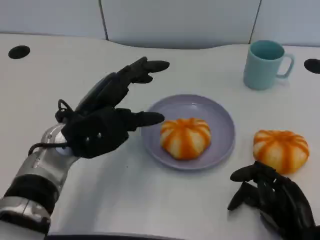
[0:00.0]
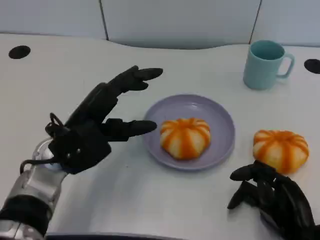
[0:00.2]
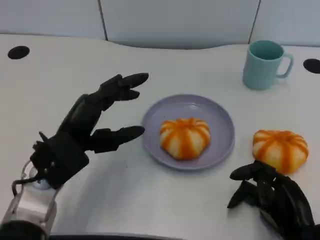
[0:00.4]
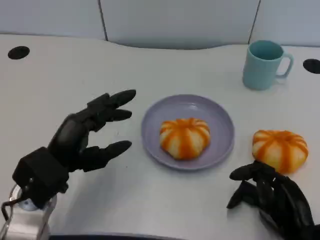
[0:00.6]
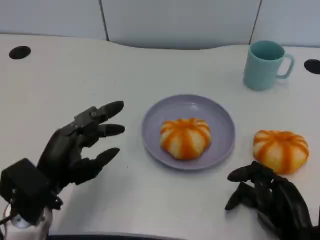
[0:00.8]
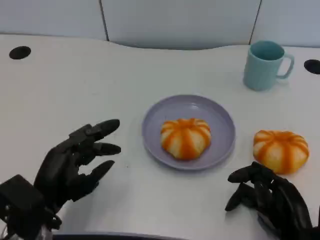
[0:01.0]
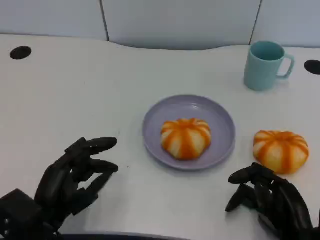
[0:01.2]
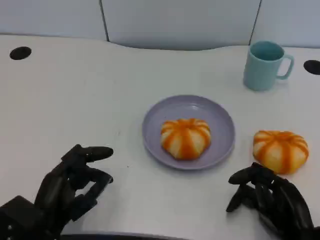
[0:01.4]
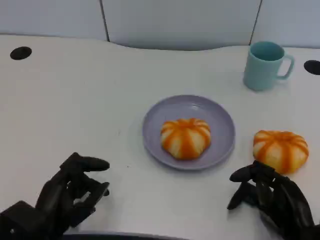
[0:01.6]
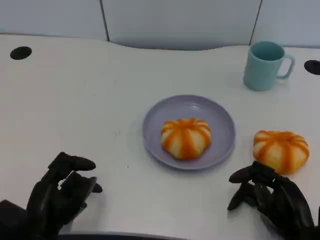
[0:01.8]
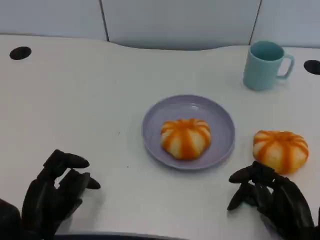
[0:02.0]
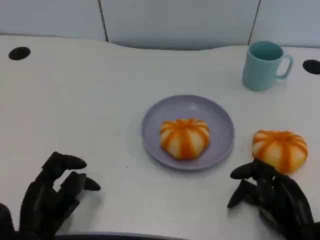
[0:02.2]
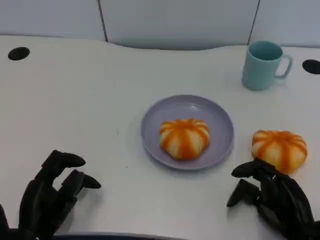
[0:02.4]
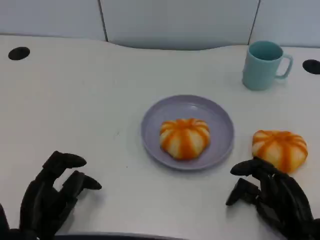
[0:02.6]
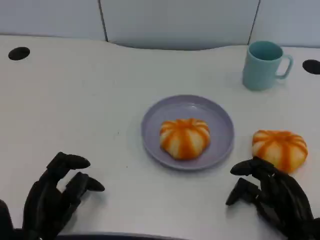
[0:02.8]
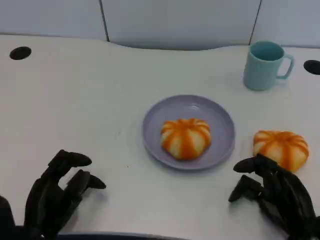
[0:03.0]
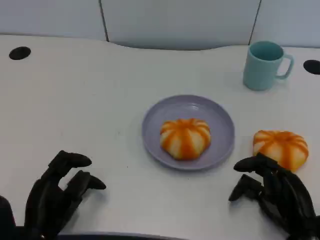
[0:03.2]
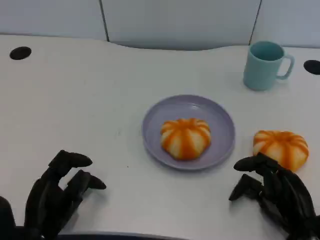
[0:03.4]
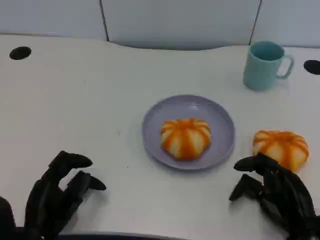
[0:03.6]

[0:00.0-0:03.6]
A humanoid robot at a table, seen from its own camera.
Task of the whole recording: Grasp the bread from the table and place it into the plate.
0:00.0 to 0:01.8: The left hand travels backward, downward and to the left by about 15 cm.
0:01.8 to 0:03.6: The hands stay close to where they were, moving slightly.

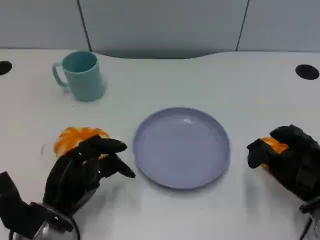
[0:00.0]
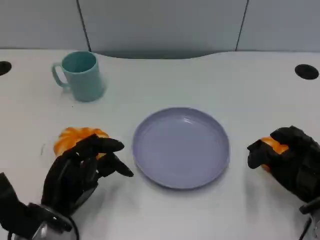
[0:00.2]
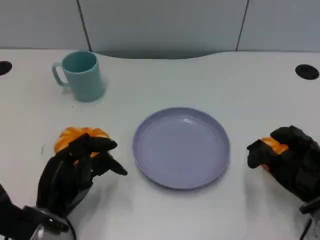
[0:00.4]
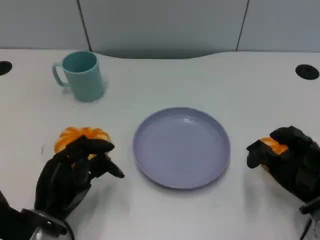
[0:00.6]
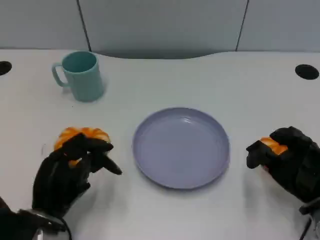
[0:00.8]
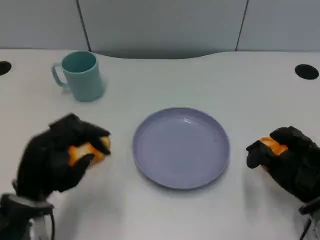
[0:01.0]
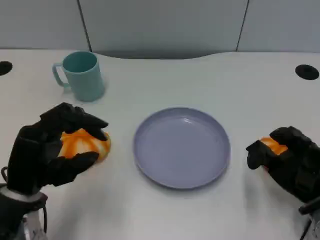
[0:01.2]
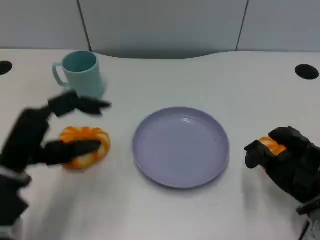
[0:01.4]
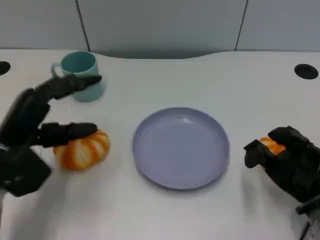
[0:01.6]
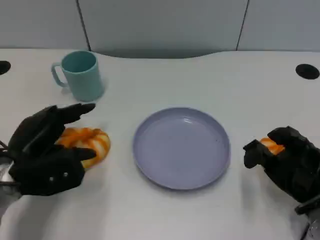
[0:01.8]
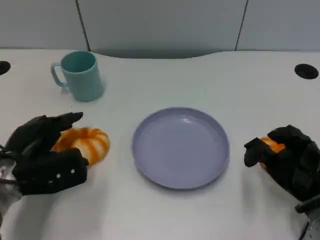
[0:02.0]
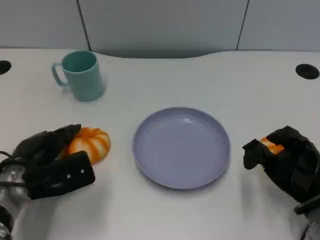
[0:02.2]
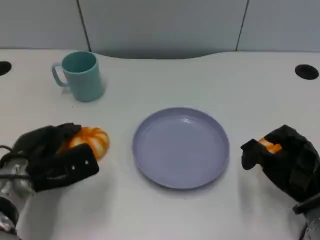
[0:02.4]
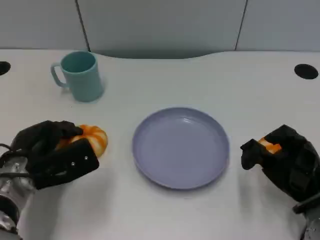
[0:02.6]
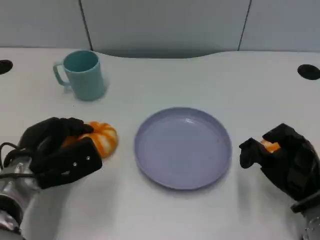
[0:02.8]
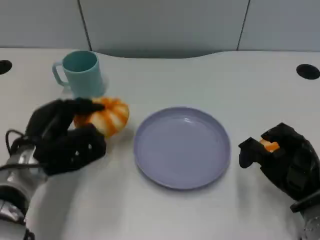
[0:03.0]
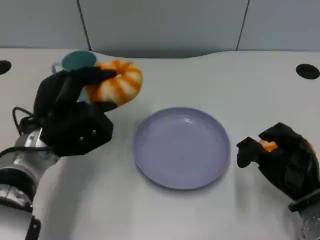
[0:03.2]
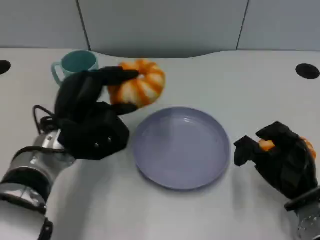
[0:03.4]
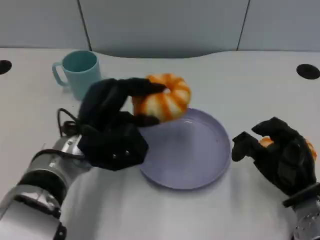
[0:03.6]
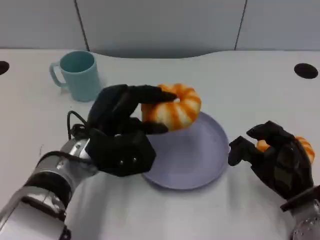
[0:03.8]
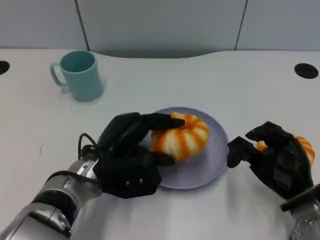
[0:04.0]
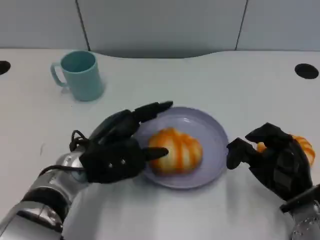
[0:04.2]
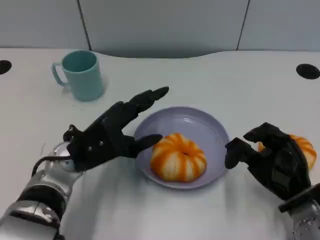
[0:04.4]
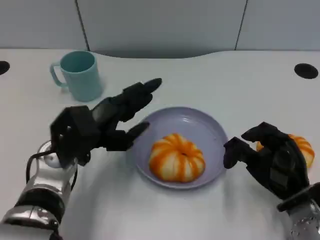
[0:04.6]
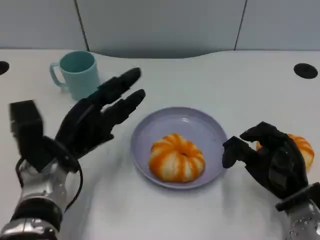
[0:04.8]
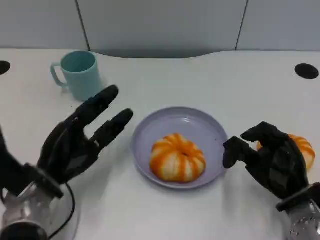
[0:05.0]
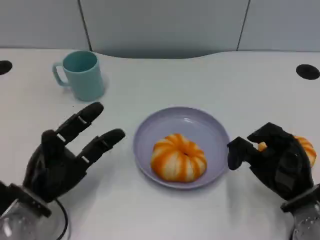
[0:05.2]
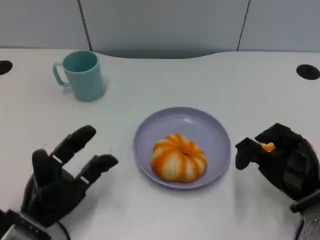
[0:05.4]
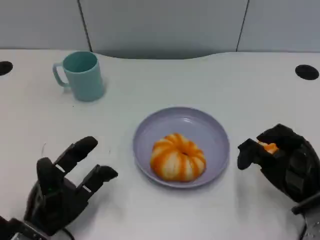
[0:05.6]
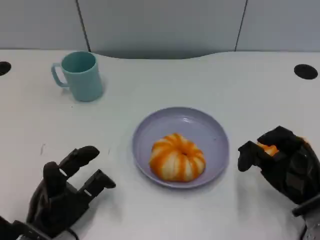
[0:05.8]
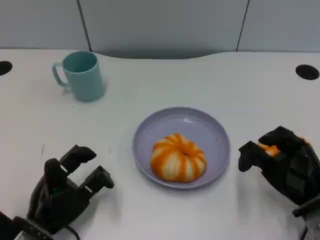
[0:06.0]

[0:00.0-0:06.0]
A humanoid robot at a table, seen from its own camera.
Task of the whole recording: Grasp the bread from the table and place it into the plate.
0:00.0 to 0:01.6: The left hand moves upward, approximately 10 cm.
0:01.6 to 0:03.0: The left hand ends up about 5 cm from where it was.
0:04.4 to 0:06.0: The left hand goes roughly 15 cm backward, downward and to the left.

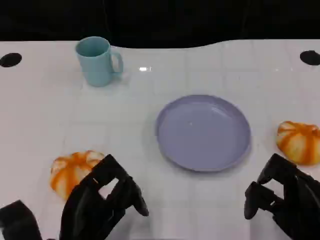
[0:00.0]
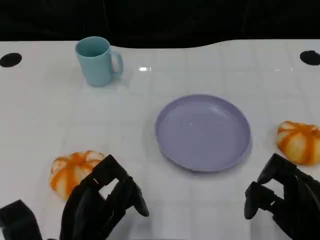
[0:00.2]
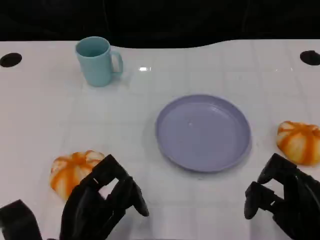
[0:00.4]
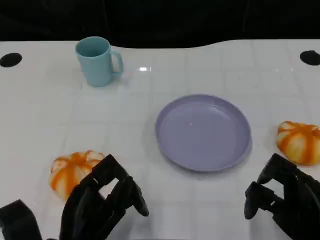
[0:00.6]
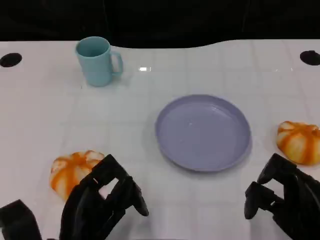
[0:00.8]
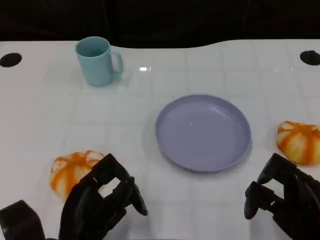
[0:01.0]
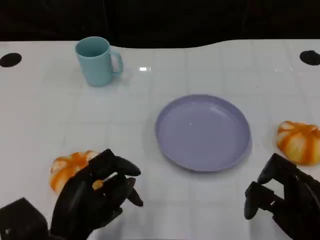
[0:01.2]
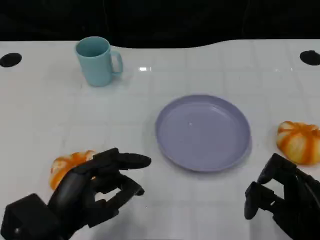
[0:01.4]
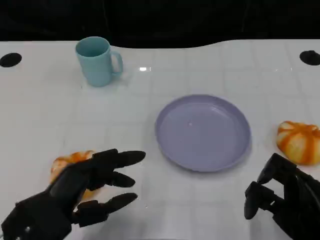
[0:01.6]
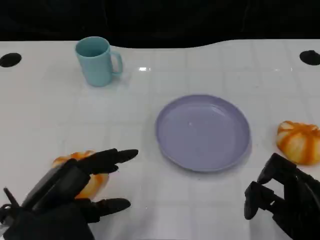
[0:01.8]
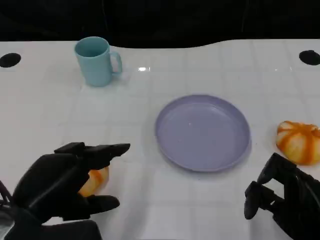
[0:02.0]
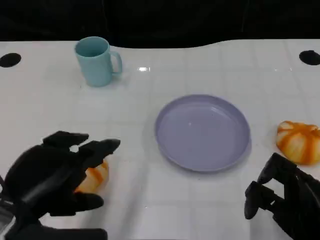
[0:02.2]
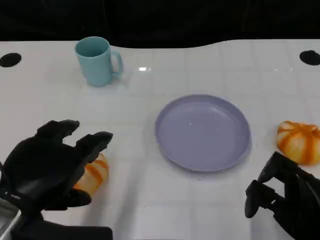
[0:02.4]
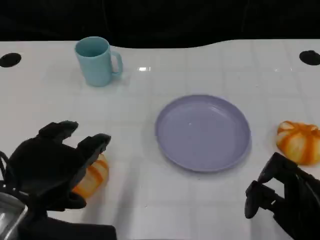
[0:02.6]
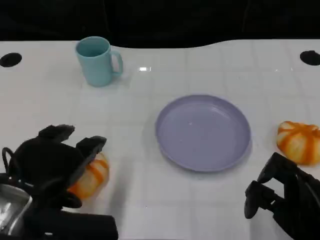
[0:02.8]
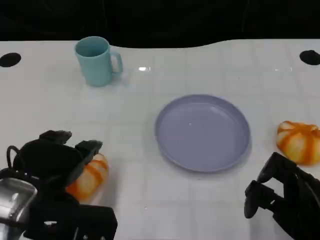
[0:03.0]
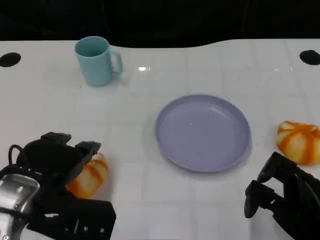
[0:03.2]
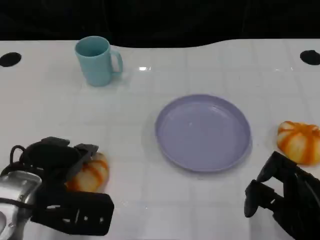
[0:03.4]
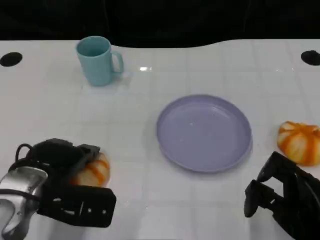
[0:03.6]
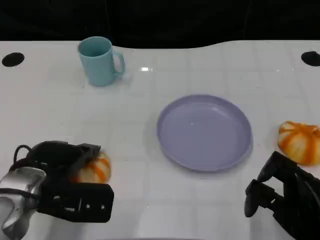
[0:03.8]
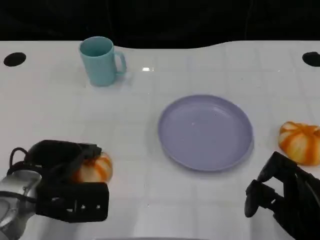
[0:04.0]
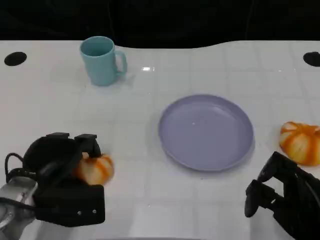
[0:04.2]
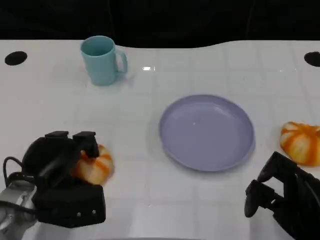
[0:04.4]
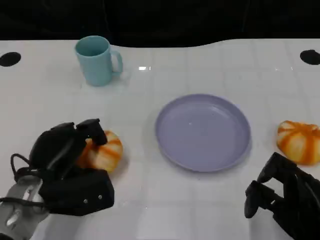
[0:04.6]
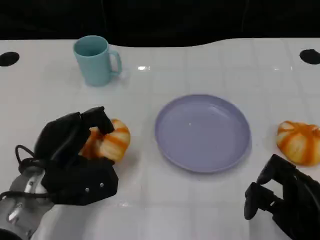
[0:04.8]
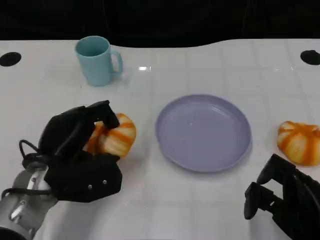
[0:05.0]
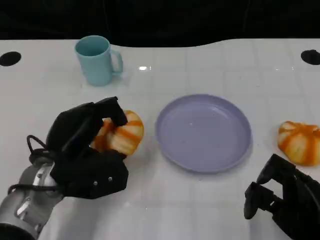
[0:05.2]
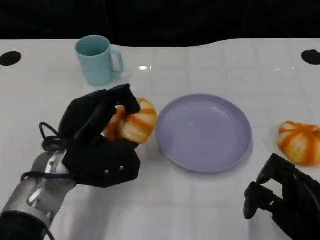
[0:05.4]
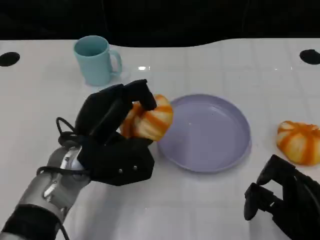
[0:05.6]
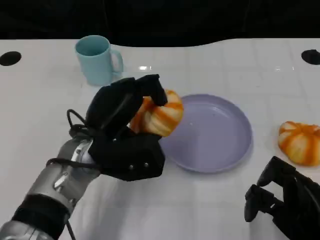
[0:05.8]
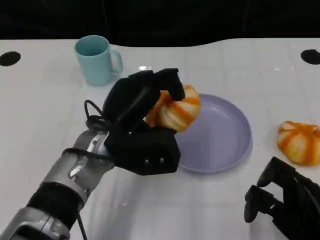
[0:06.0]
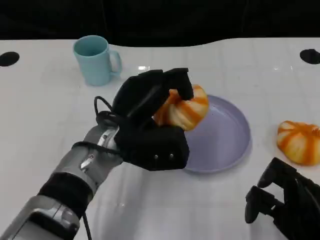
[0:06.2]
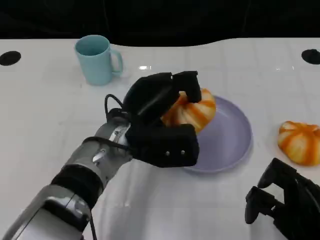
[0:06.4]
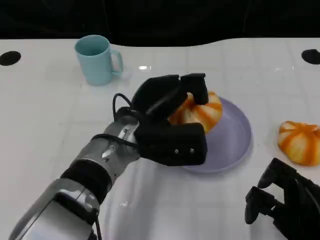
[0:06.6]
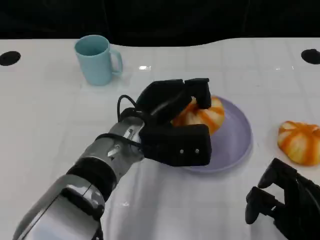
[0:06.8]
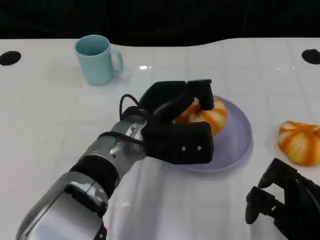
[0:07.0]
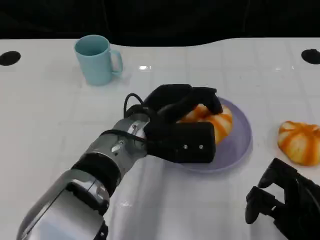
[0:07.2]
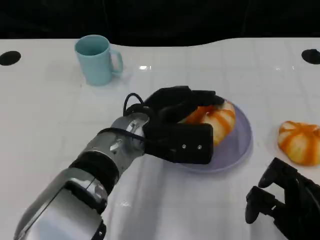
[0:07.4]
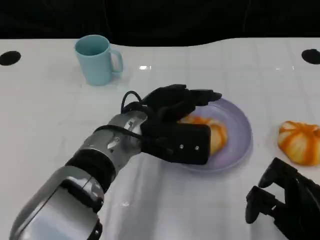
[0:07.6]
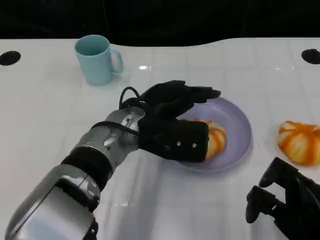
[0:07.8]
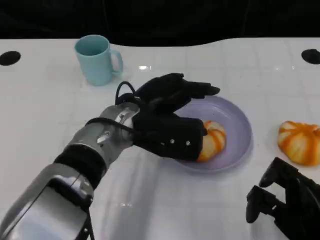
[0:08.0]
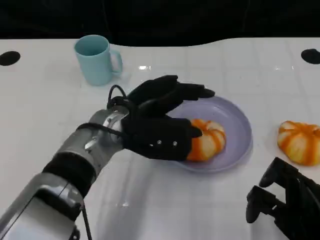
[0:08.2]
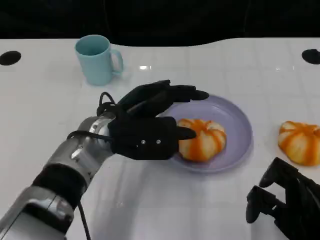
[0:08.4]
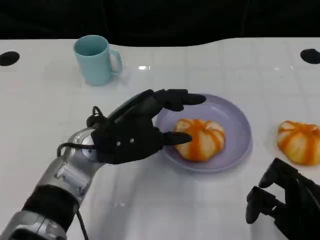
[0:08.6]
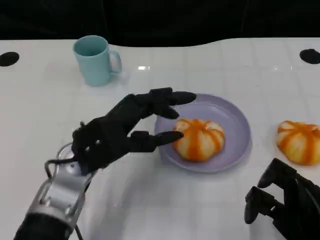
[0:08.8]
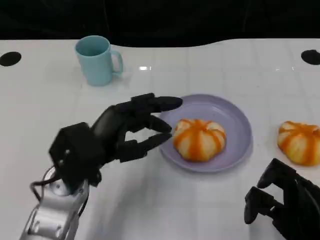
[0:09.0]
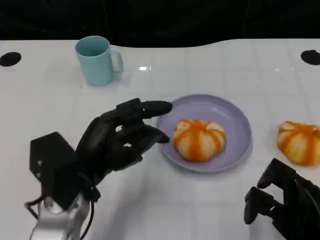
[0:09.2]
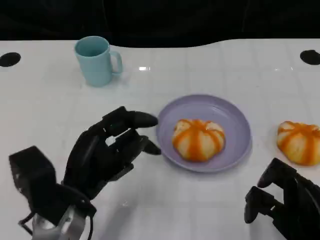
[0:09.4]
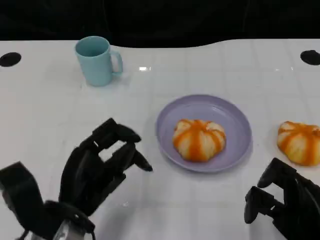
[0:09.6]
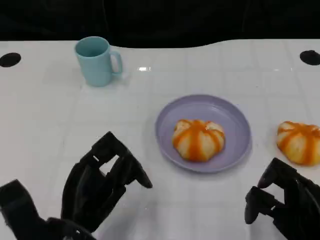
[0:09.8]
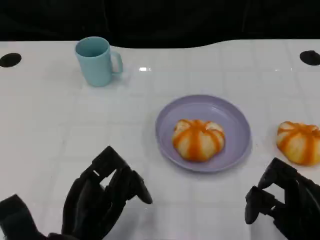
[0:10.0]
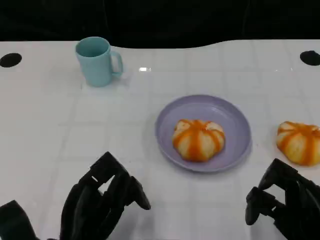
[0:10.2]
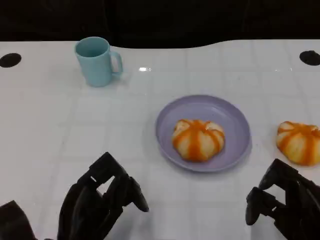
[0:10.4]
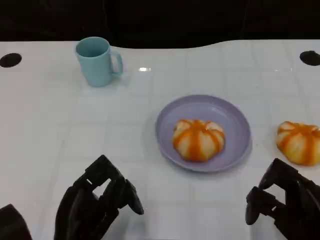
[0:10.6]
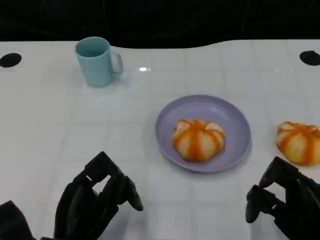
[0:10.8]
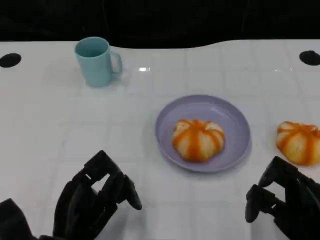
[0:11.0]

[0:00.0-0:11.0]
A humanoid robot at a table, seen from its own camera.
Task of the whole recording: Grasp the bread from the table and place it into the plate.
0:00.0 to 0:01.6: The left hand is displaced upward by approximately 5 cm.
0:01.6 to 0:03.2: The left hand is displaced forward by roughly 5 cm.
0:03.2 to 0:04.8: The left hand ends up roughly 5 cm from where it was.
0:04.8 to 0:06.2: The left hand moves to the right, some 10 cm.
0:07.8 to 0:09.4: The left hand goes approximately 15 cm to the left and backward.
0:09.4 to 0:11.0: The left hand changes place by roughly 5 cm.

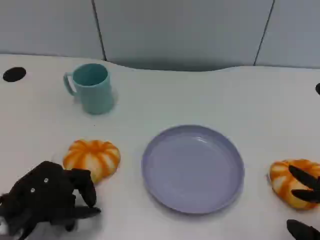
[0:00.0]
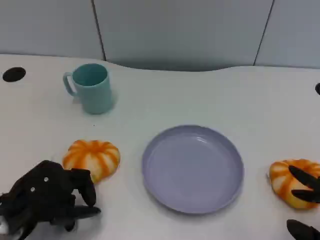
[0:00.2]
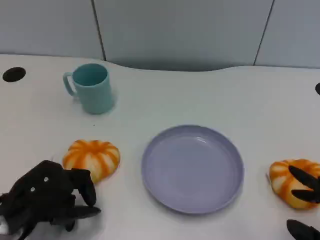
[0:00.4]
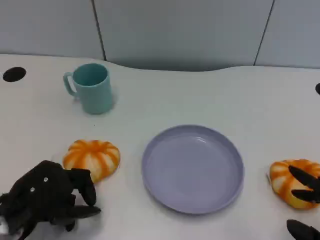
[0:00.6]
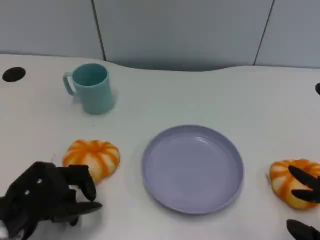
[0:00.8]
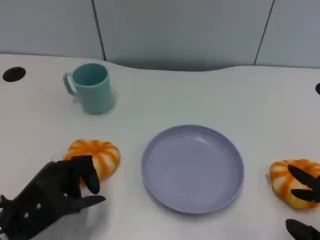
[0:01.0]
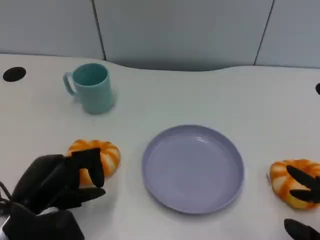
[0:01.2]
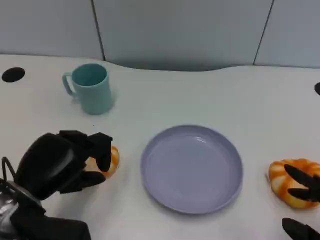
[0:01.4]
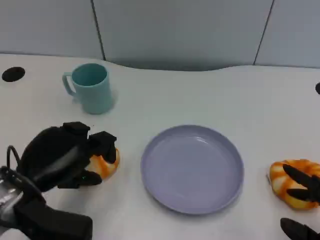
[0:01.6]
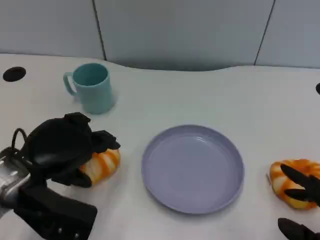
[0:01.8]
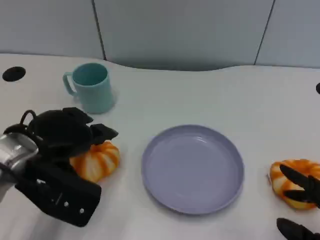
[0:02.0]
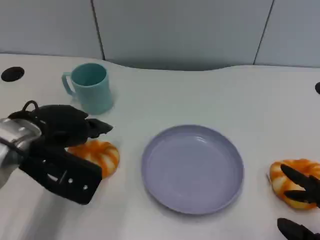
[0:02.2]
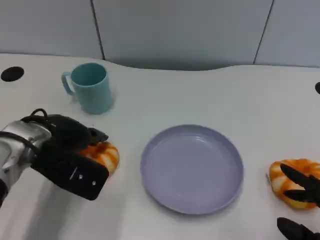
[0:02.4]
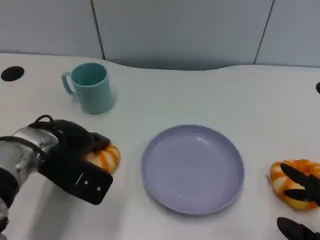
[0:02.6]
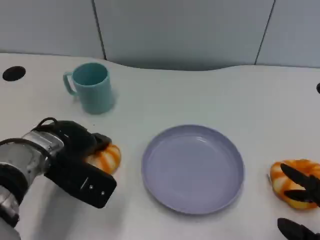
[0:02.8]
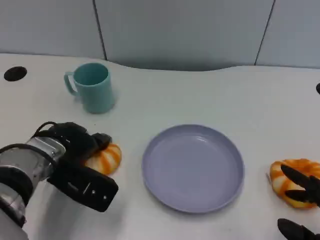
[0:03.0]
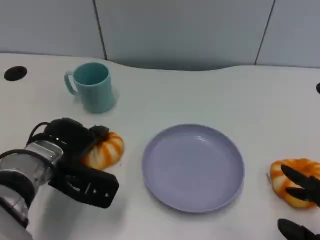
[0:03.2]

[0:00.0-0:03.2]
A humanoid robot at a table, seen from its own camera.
Task of the whole recording: Grasp the bread from the table and place it into the plate.
0:01.6 to 0:03.2: The left hand goes some 5 cm forward.
